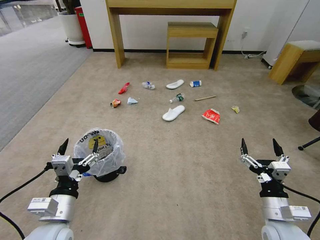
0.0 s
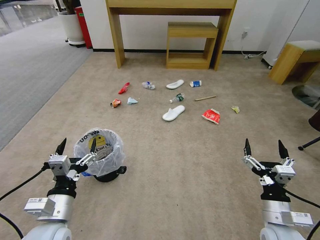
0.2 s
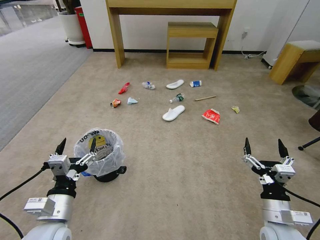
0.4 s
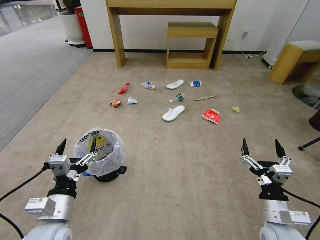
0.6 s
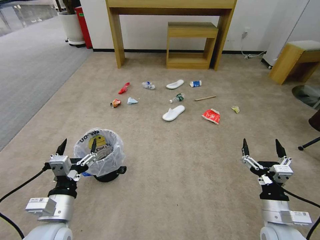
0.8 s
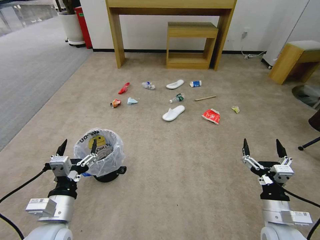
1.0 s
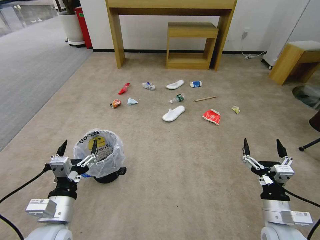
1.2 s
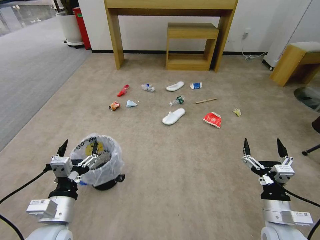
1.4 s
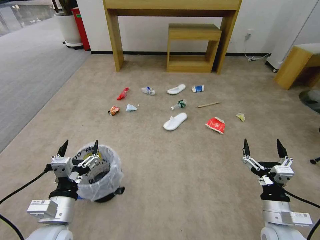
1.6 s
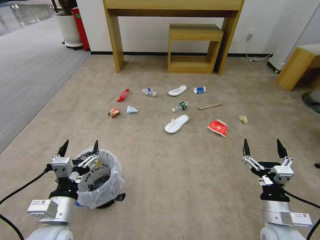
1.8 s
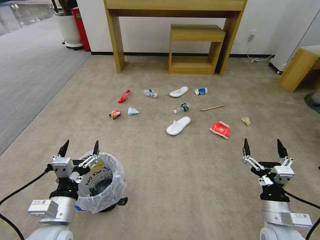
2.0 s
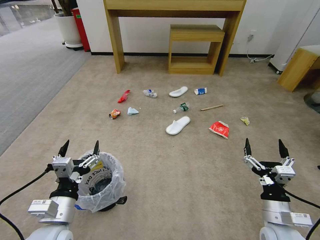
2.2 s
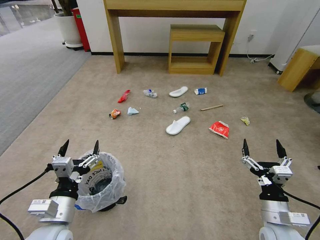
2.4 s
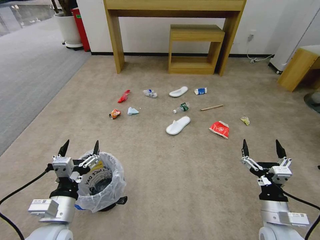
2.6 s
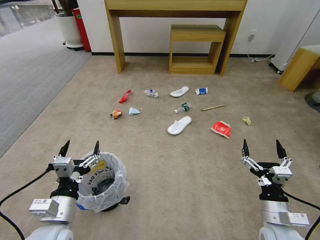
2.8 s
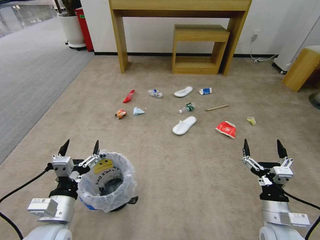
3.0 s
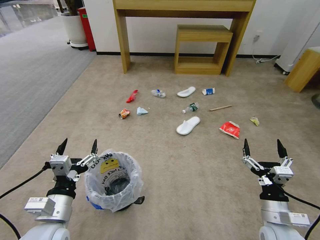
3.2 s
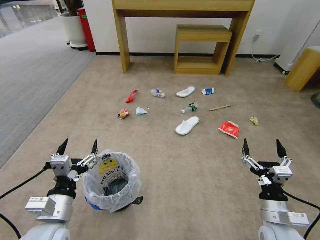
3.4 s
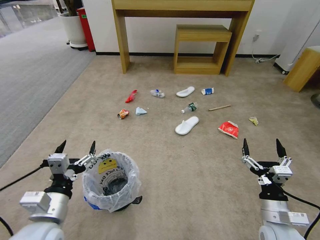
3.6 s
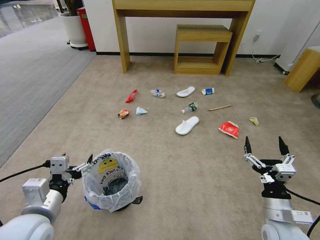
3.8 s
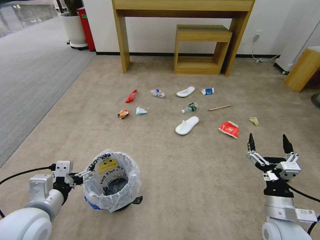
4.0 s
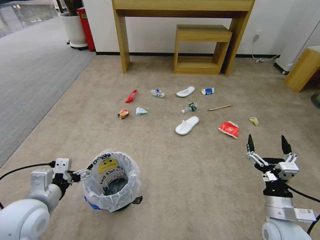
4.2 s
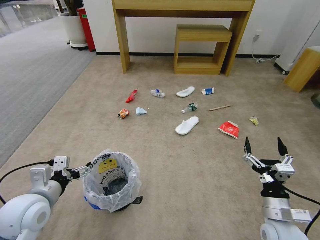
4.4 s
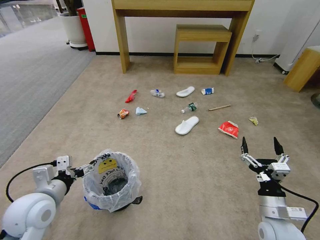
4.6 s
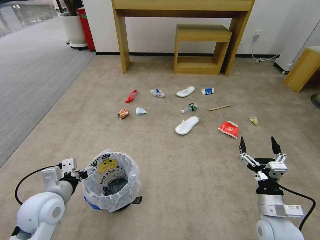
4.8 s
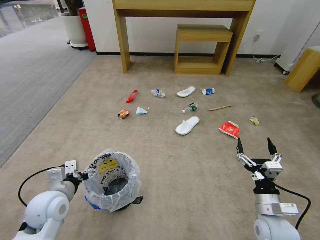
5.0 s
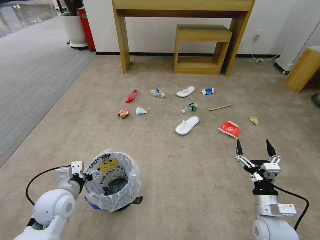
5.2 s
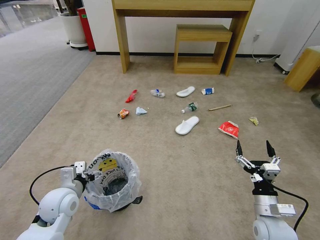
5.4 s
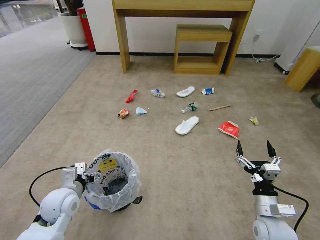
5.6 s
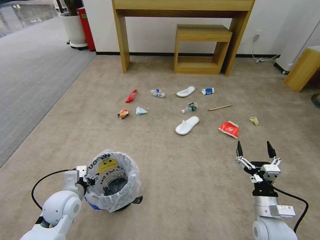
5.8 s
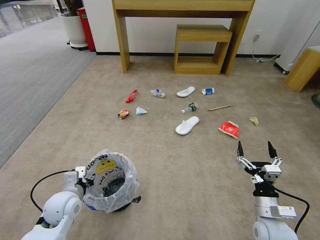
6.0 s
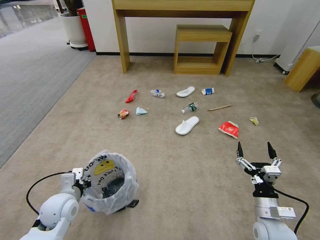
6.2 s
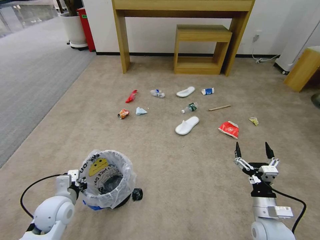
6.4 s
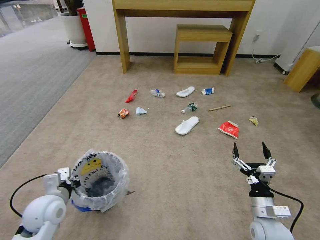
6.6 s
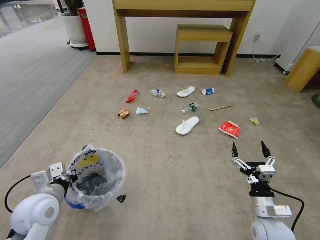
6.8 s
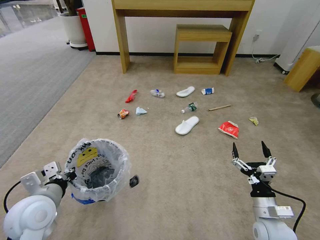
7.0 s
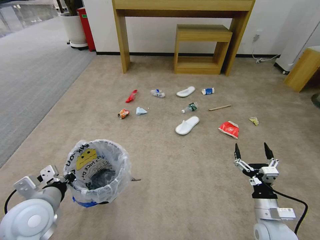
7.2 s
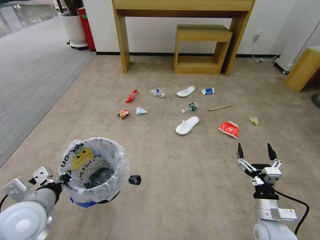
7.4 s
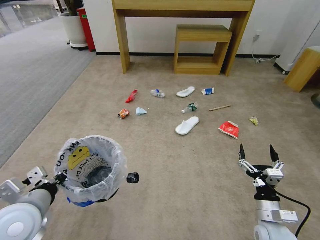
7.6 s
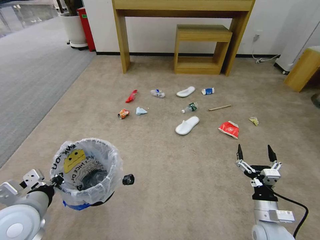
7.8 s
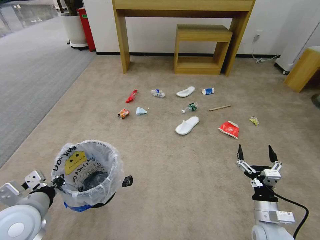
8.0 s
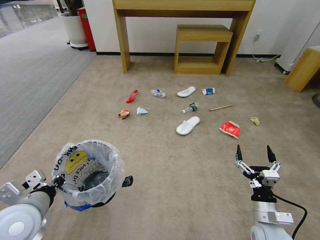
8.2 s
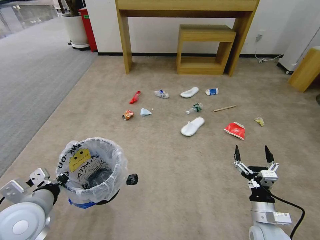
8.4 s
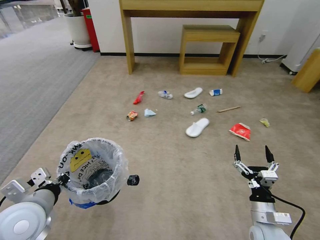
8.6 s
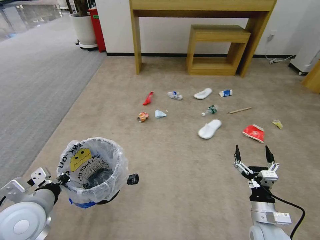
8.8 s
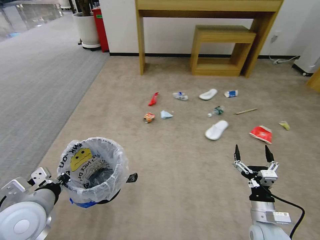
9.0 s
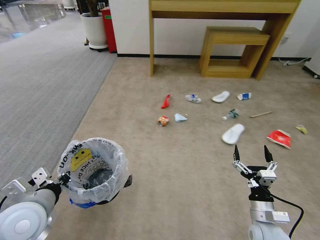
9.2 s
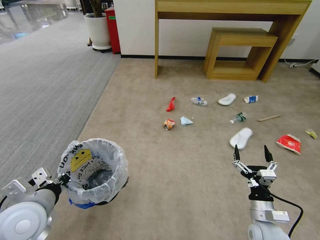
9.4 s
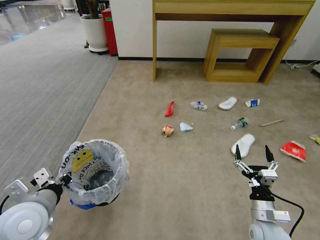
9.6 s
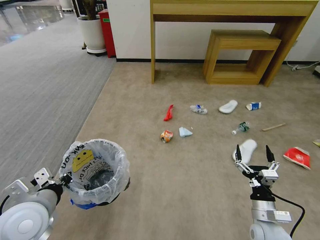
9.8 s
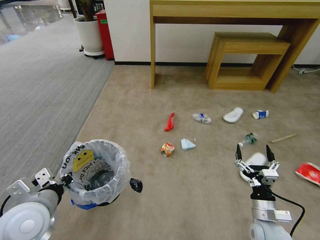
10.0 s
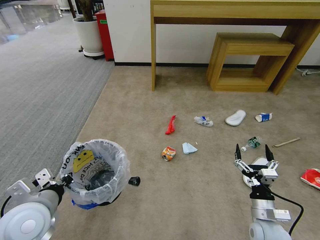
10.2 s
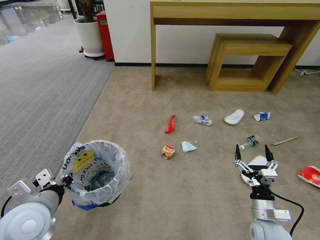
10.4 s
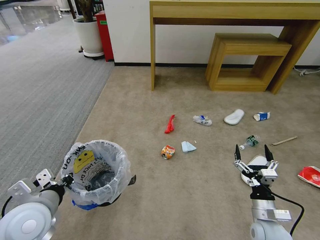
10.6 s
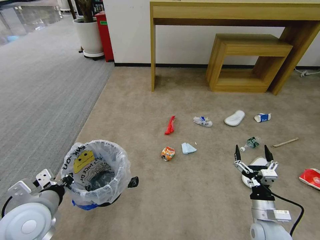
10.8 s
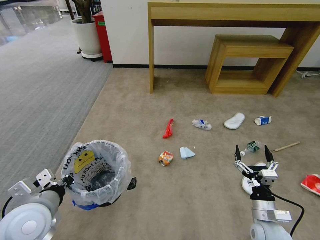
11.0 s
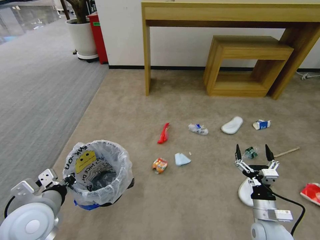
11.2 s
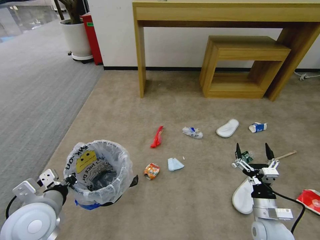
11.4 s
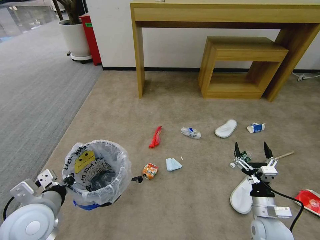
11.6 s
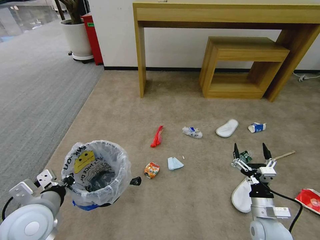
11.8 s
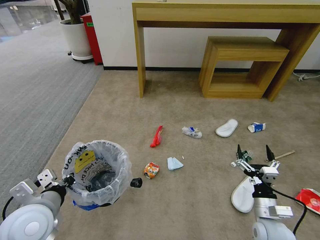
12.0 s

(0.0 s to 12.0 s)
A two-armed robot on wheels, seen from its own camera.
Task of the whole recording: Pick up the trash bin and place the garbage on the floor into it.
1.6 s - 3.0 s: Both grippers stay about where they are.
3.0 s - 4.4 s: The left gripper shifts about 10 cm to the left and forward.
4.4 s - 6.0 s: The left gripper is displaced downward by some 10 cm, and closes.
6.0 s - 7.6 s: The left gripper shifts some 15 cm upward and backward, and closes its fingers.

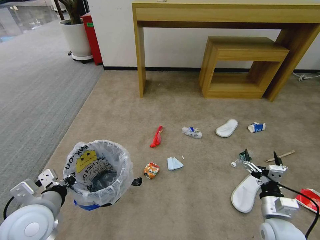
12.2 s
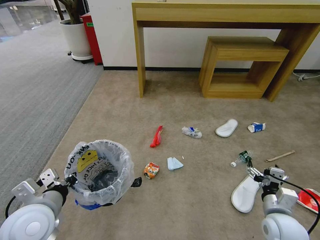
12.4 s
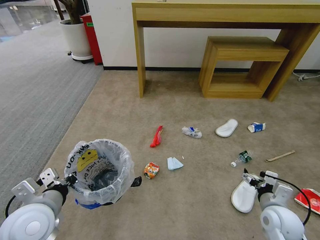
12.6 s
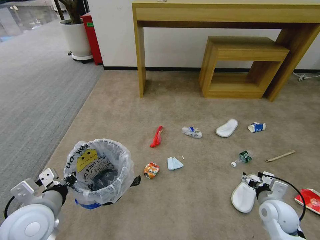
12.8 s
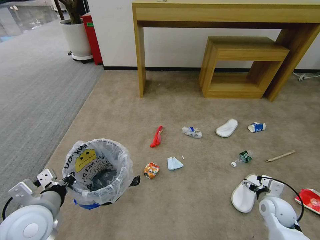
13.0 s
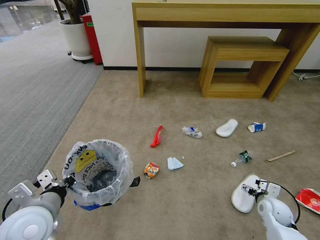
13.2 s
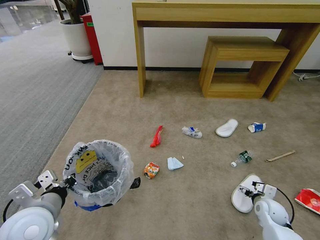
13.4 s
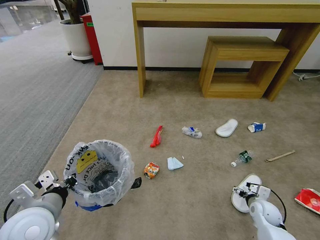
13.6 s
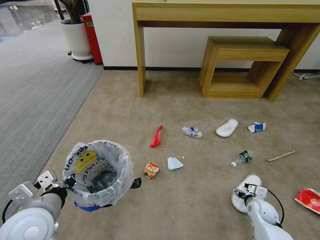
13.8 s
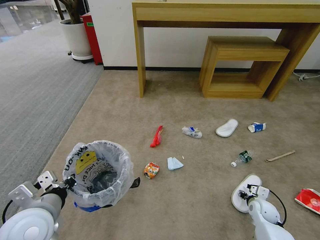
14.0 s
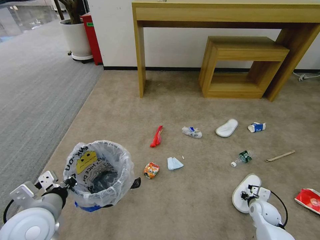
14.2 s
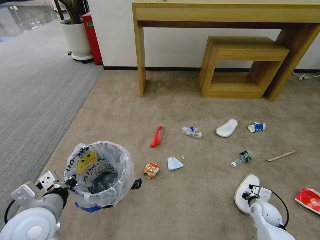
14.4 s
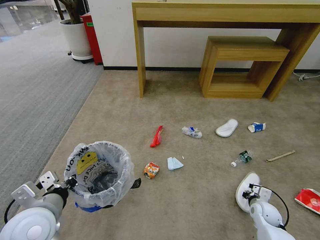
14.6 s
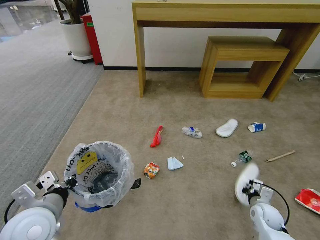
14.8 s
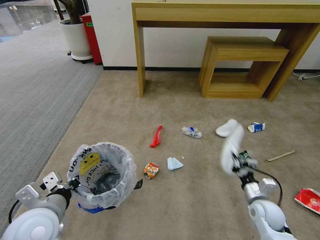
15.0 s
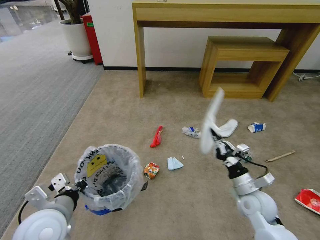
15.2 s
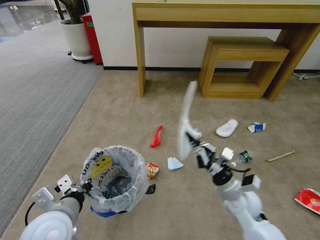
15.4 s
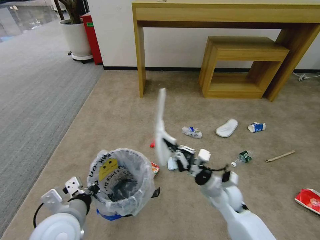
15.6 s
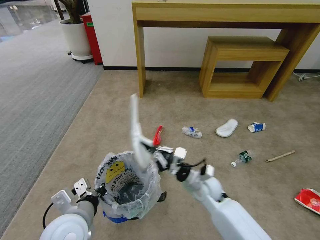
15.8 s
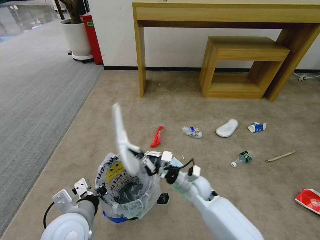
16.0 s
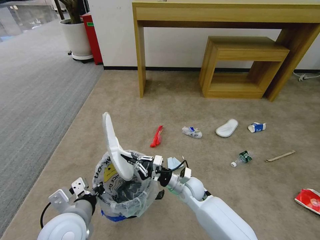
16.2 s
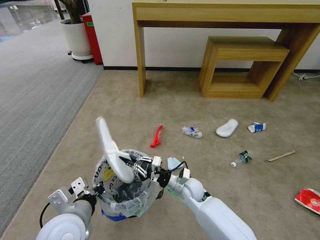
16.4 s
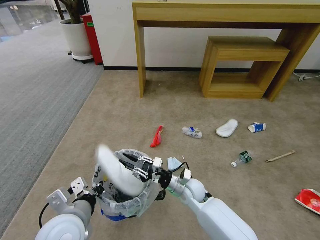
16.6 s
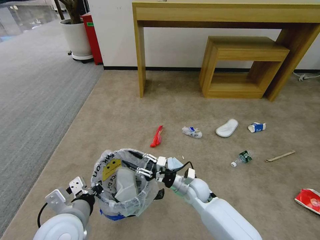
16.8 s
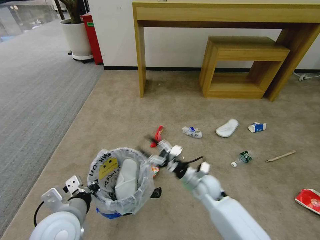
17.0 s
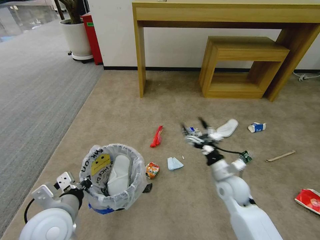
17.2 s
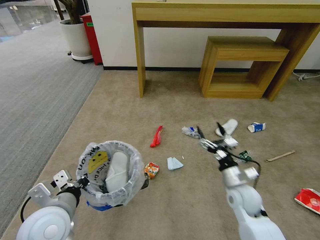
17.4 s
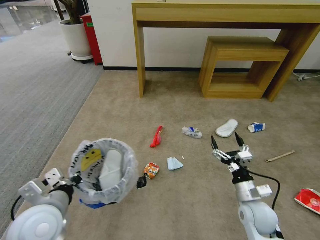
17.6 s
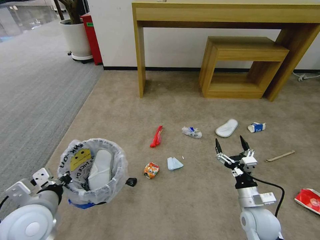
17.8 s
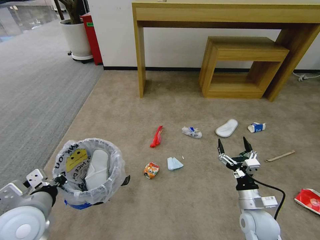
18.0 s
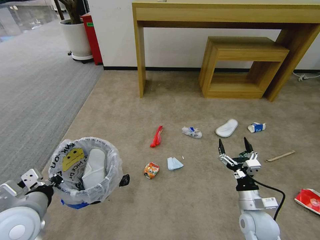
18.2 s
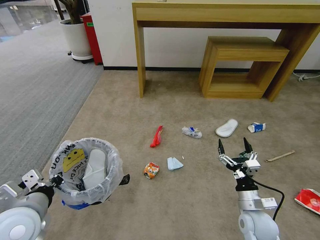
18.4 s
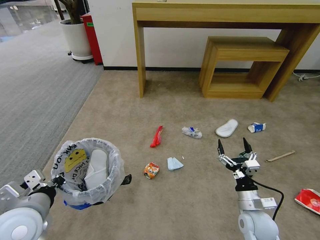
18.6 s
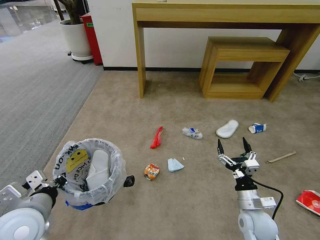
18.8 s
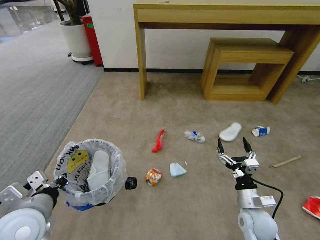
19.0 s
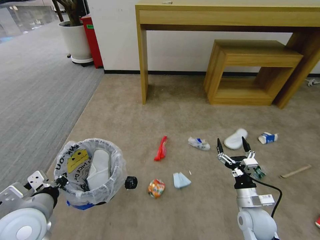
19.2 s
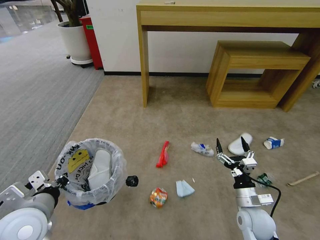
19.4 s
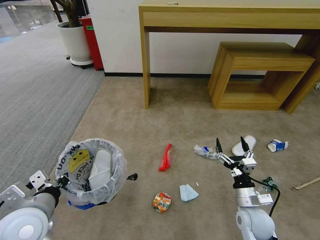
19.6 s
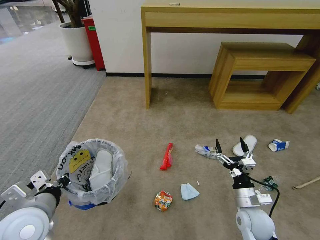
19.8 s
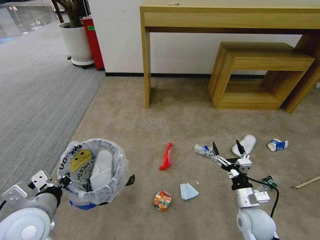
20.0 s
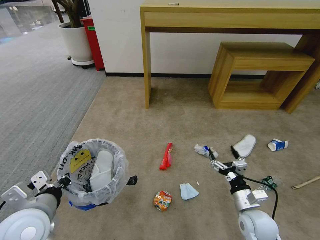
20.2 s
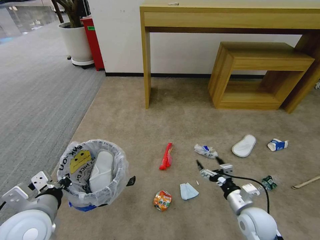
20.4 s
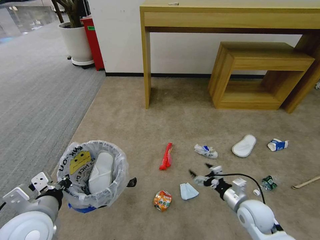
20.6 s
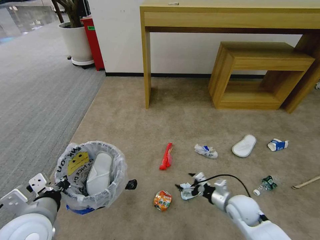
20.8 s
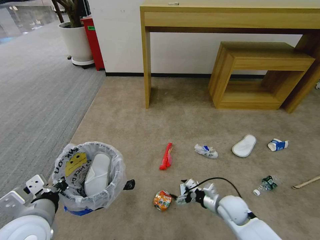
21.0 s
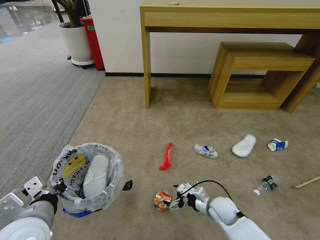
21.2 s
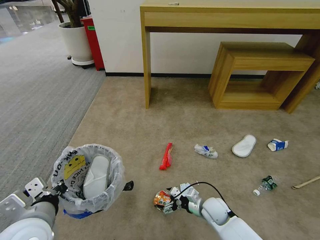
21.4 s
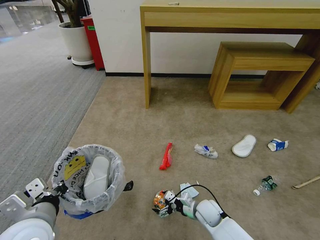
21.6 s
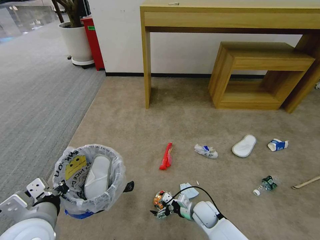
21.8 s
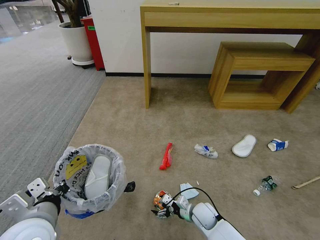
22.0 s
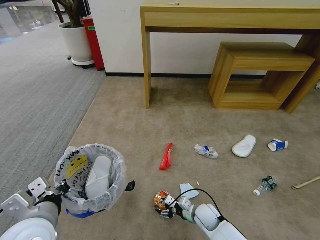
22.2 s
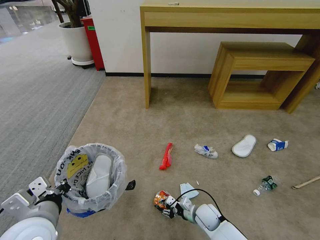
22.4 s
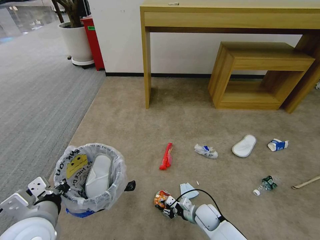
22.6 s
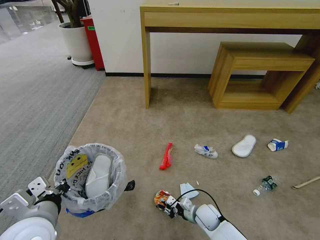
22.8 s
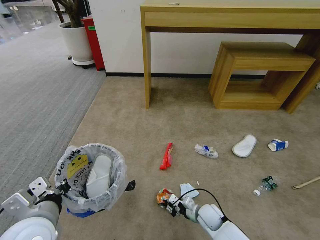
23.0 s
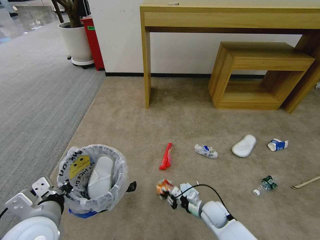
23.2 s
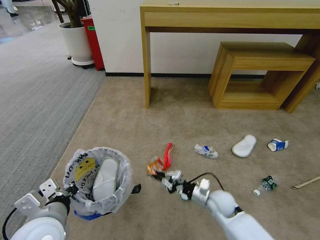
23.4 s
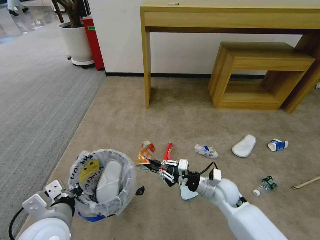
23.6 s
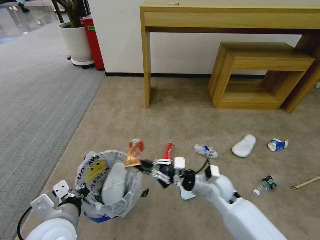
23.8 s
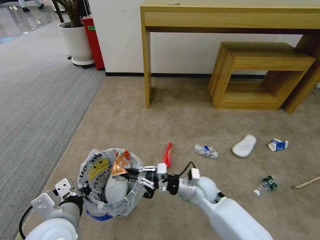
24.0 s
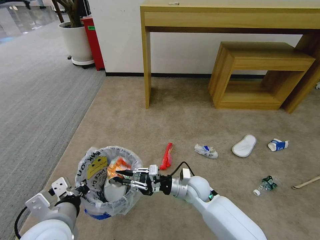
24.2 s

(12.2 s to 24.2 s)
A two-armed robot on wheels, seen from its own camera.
Task of the whole recording: Pick up the trash bin and place the garbage on the floor into it.
12.2 s - 13.8 s: The right gripper is displaced downward, forward and to the right by some 15 cm.
13.8 s - 15.2 s: The right gripper moves upward and to the left, about 15 cm, and closes its fingers.
15.2 s - 16.6 s: The right gripper travels to the left by approximately 20 cm.
16.6 s - 18.2 s: The right gripper goes some 20 cm to the right and backward, and opens up; the left gripper moves to the left, some 10 cm.
19.8 s - 21.2 s: The right gripper moves downward, to the left and forward, approximately 10 cm.
21.2 s - 22.6 s: The right gripper is displaced downward by some 5 cm, and closes.
22.6 s - 24.2 s: The right gripper is displaced upward and to the left by approximately 15 cm.
